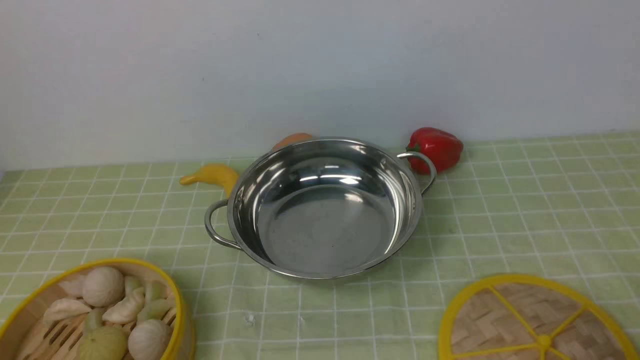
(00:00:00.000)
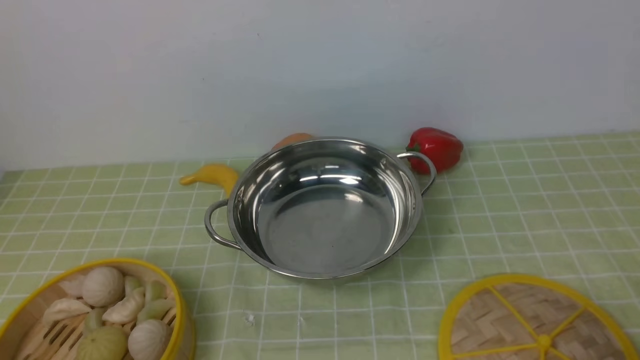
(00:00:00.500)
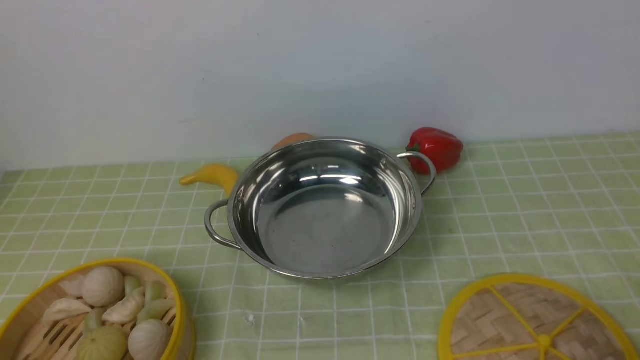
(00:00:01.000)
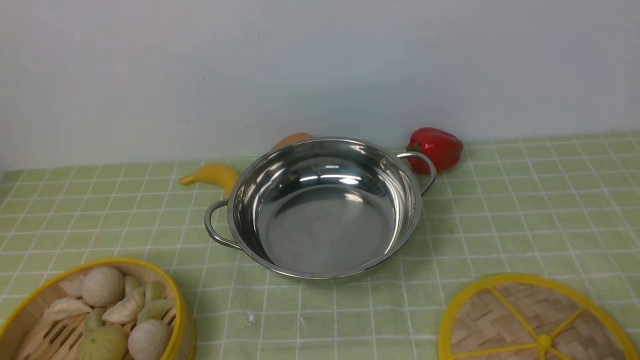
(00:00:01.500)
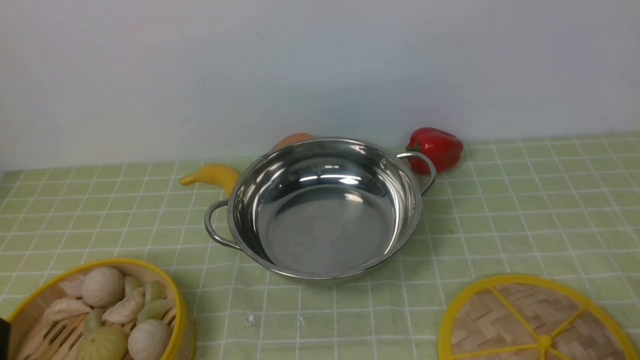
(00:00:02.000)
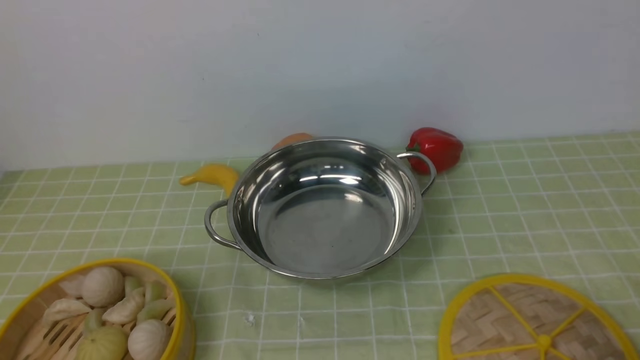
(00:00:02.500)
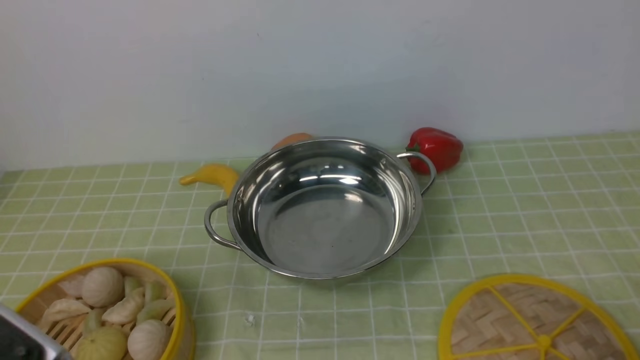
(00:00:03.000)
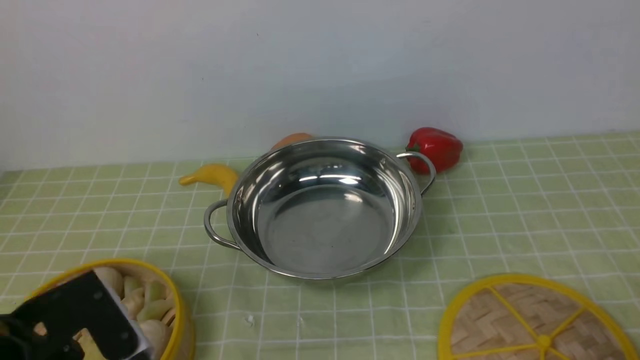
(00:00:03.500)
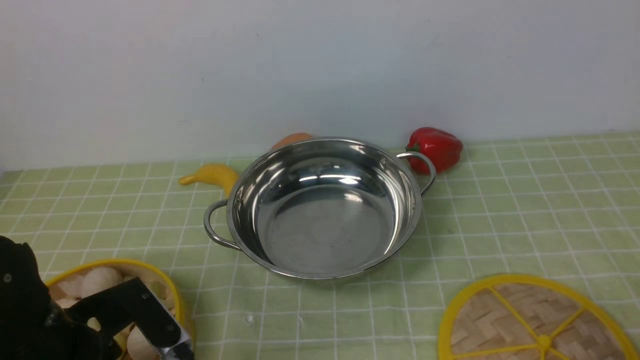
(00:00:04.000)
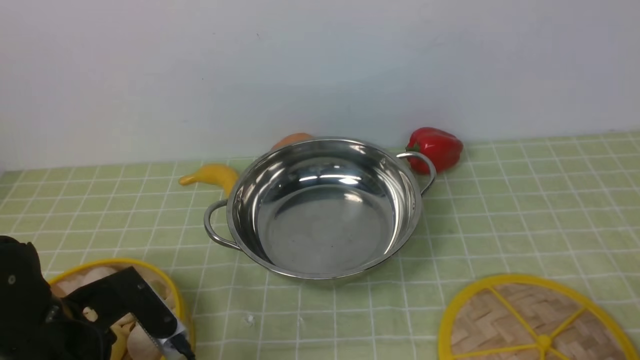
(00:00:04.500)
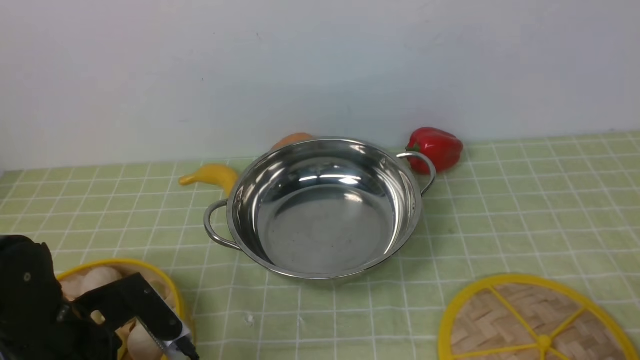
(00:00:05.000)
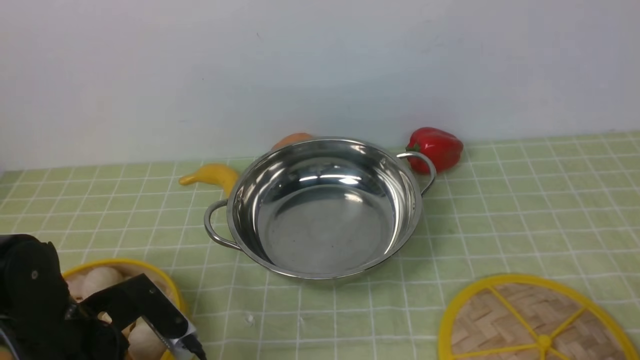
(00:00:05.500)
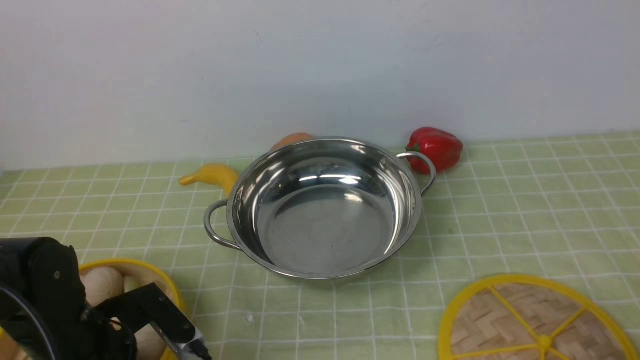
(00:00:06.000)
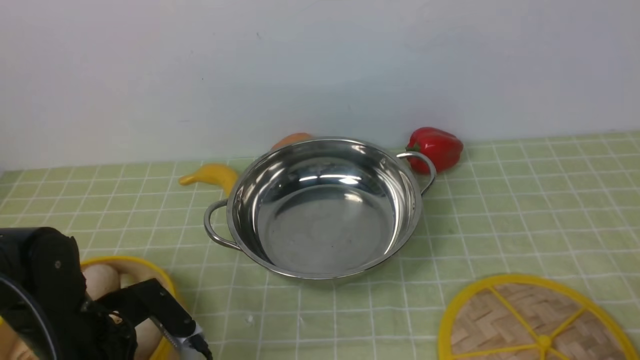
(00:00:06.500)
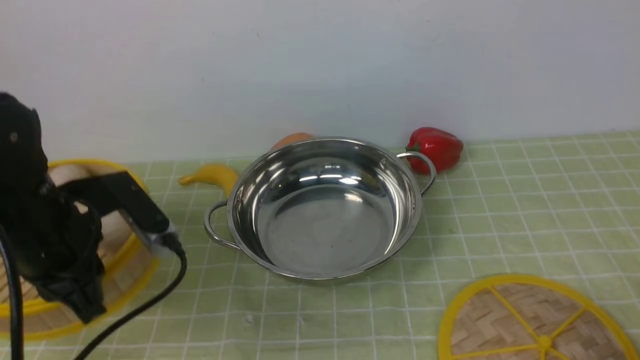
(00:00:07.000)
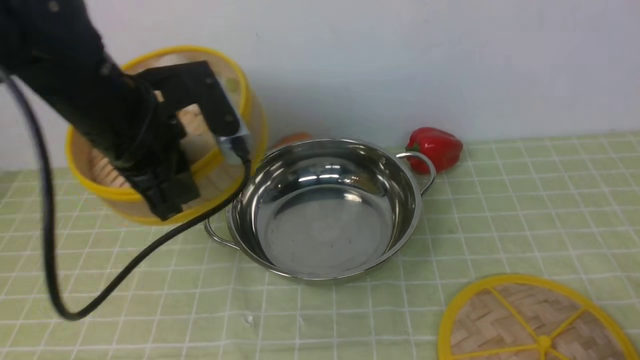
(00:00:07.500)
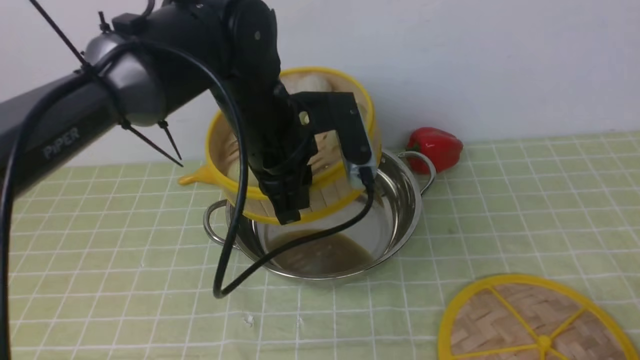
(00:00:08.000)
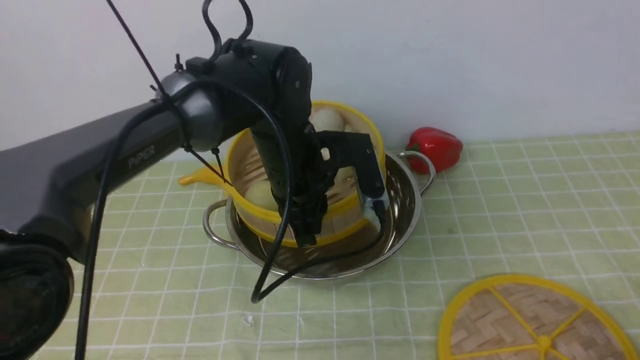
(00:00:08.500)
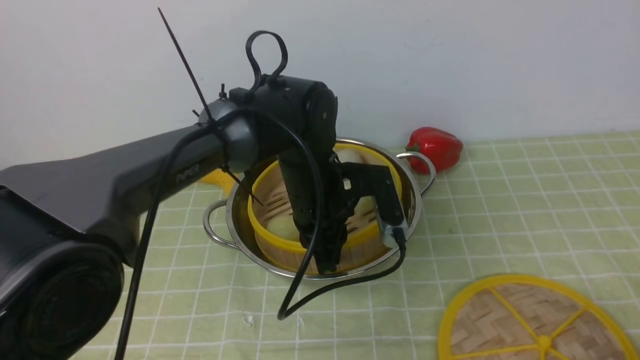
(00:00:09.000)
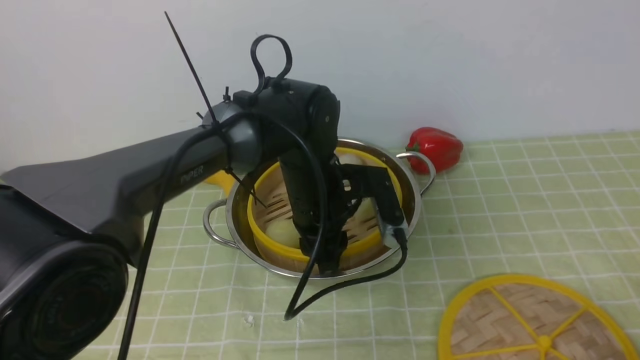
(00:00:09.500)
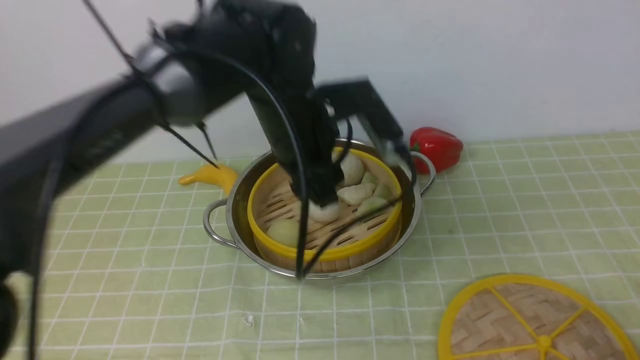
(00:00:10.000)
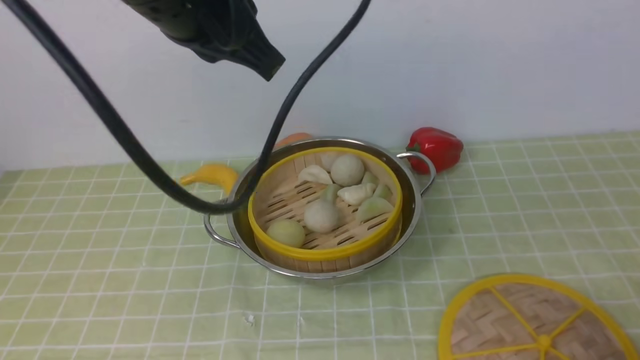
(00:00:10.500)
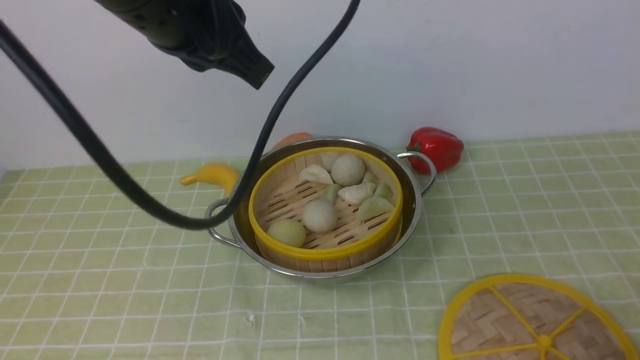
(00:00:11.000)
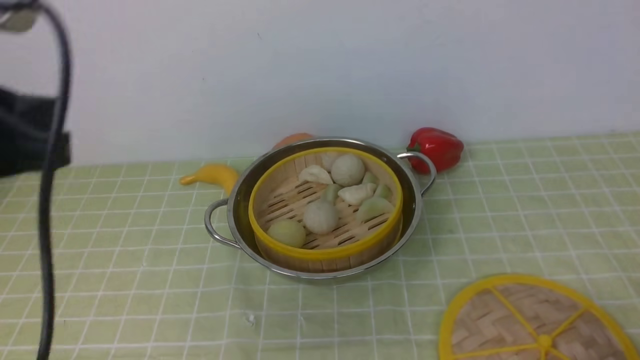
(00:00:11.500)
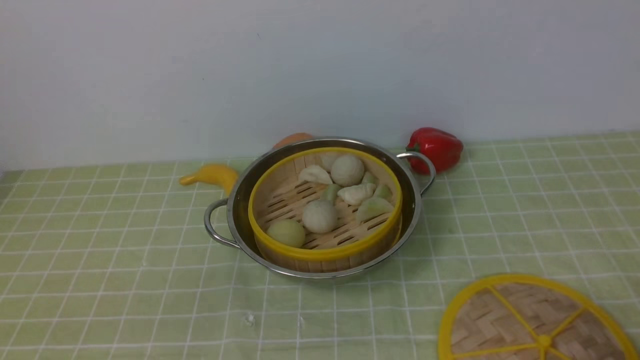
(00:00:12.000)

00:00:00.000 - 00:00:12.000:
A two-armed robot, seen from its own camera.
Task of the whole recording: place the steamer in the pot on the green tablecloth, and put the lid on the steamer.
Step, 00:00:00.000 - 00:00:07.000: use the left arm to lift the steamer closest to it.
Step, 00:00:07.500 - 00:00:10.000: use the left arm to put the steamer into the iron steamer pot in the middle.
00:00:02.000 - 00:00:04.000: The left gripper moves forward, roughly 10 cm, and opens.
00:00:04.000 - 00:00:06.000: The left gripper closes its fingers.
00:00:06.000 - 00:00:08.000: The left gripper goes about 25 cm to the right, forward and upward, and closes up.
00:00:08.000 - 00:00:10.000: The left gripper reaches about 10 cm downward, then returns, and opens its fingers.
00:00:10.000 - 00:00:12.000: The left gripper moves backward and to the left, about 40 cm, and closes up.

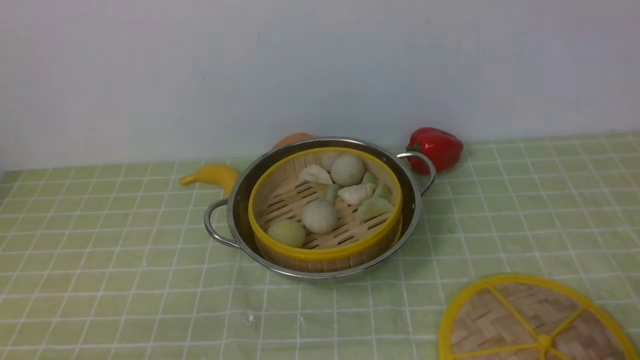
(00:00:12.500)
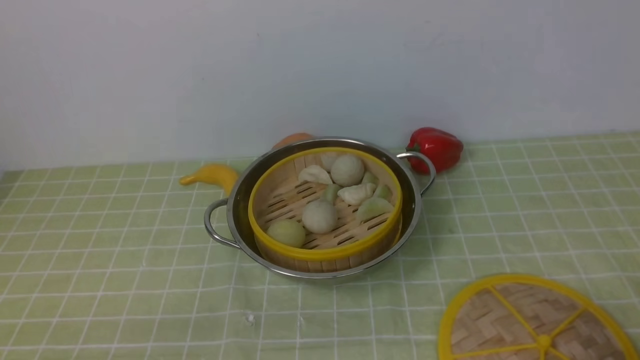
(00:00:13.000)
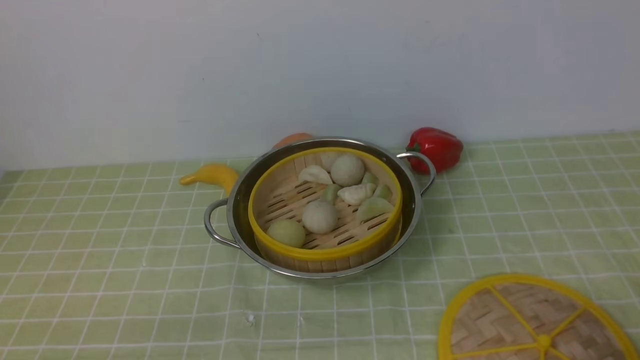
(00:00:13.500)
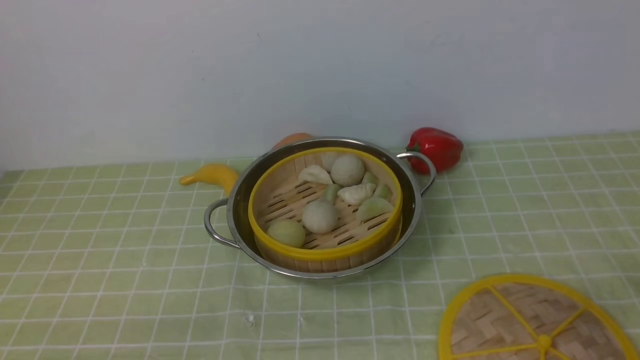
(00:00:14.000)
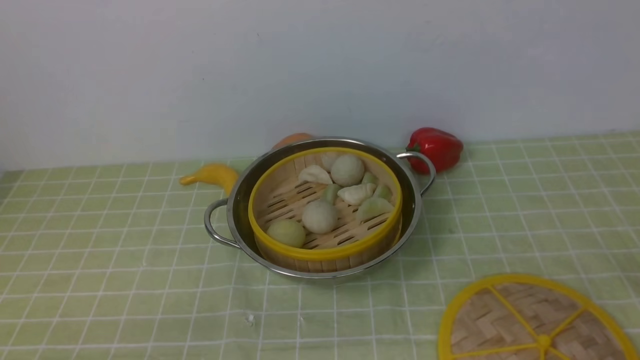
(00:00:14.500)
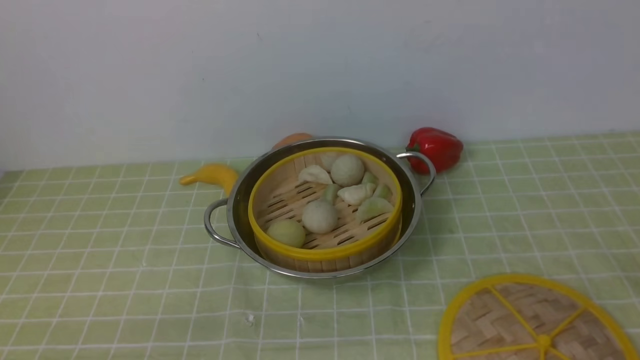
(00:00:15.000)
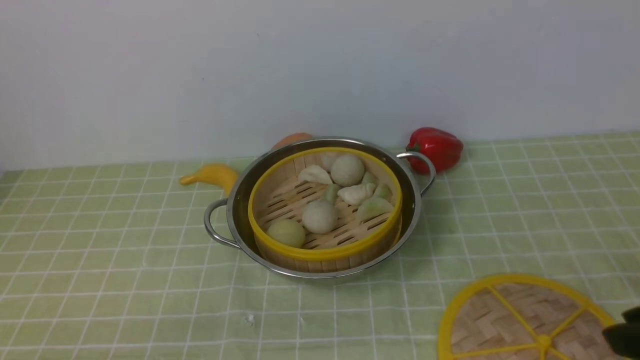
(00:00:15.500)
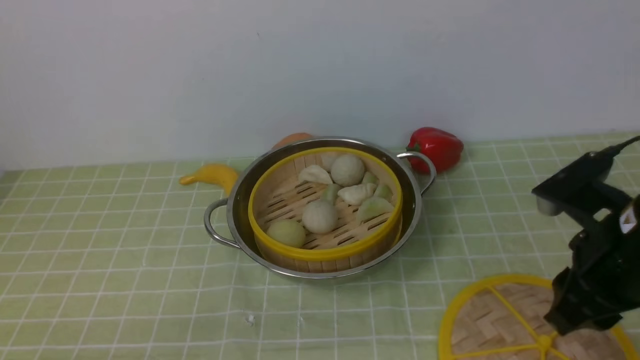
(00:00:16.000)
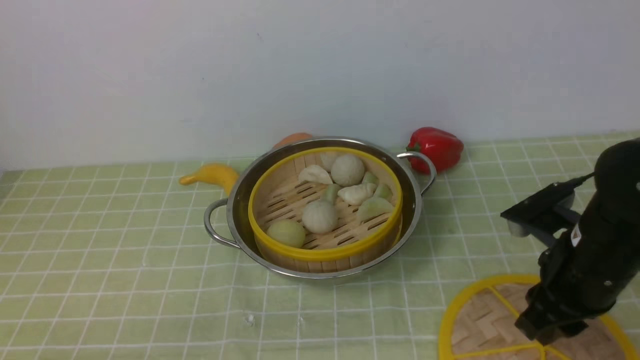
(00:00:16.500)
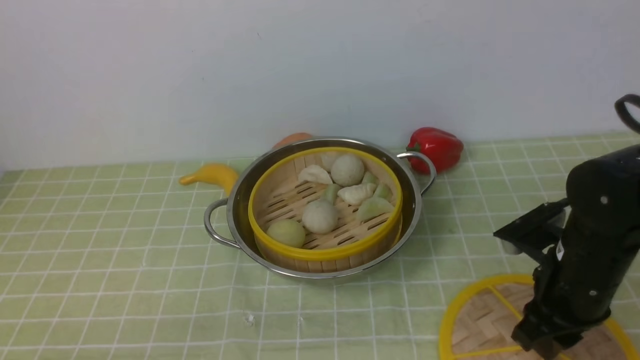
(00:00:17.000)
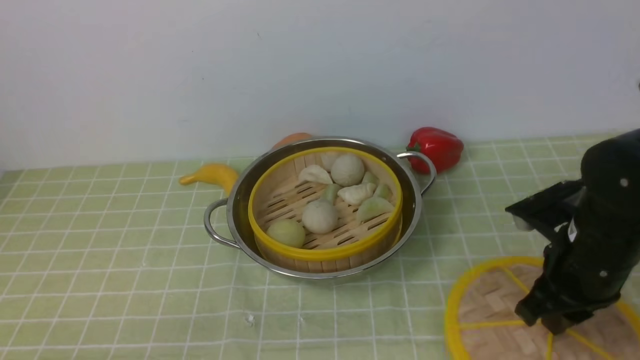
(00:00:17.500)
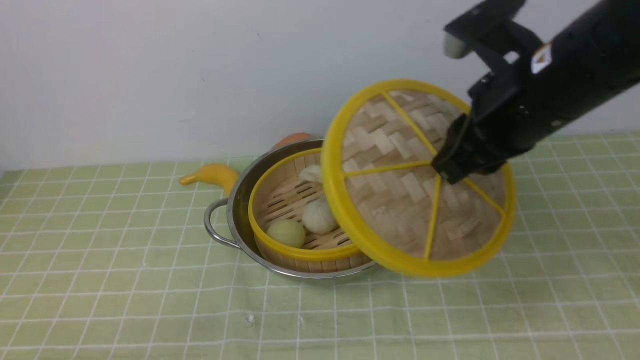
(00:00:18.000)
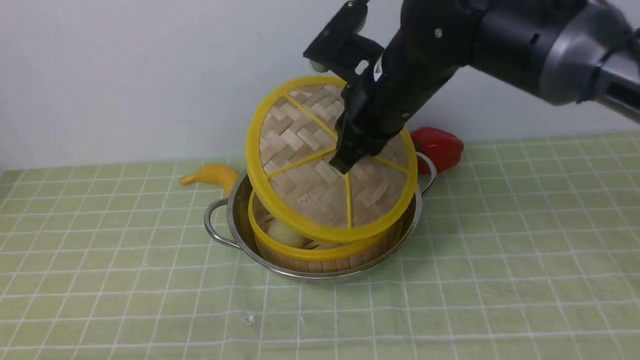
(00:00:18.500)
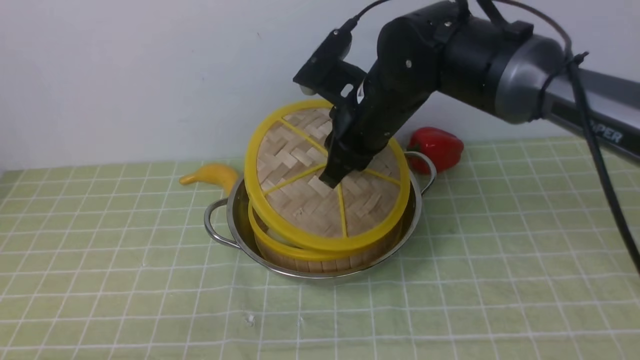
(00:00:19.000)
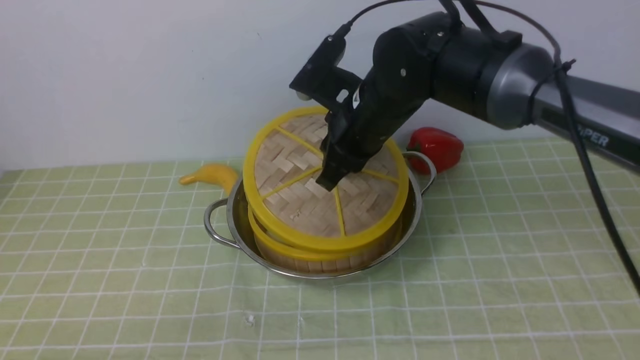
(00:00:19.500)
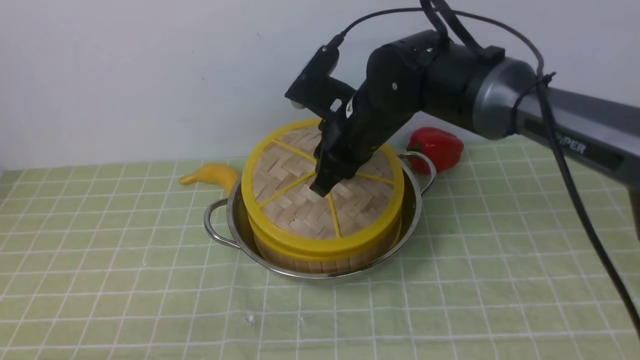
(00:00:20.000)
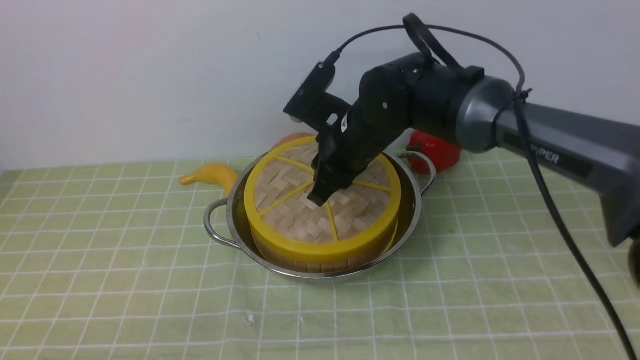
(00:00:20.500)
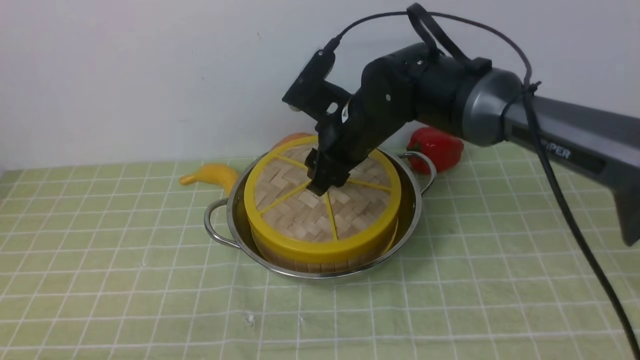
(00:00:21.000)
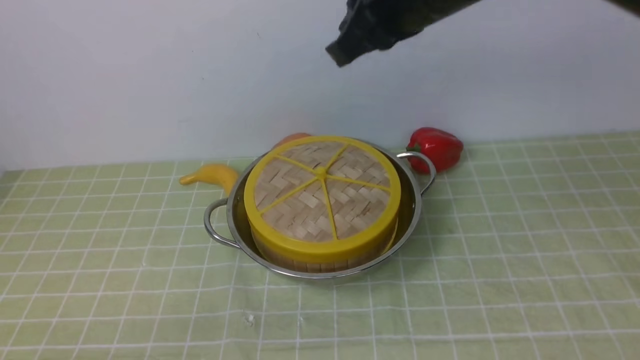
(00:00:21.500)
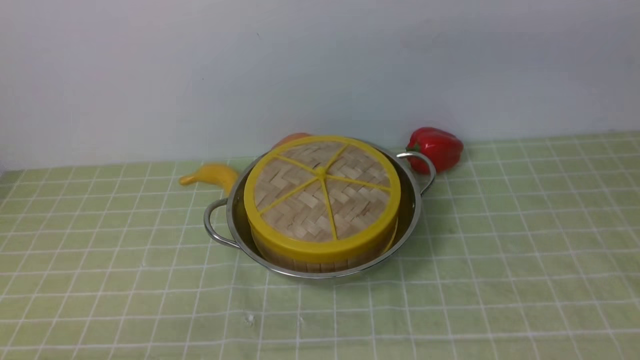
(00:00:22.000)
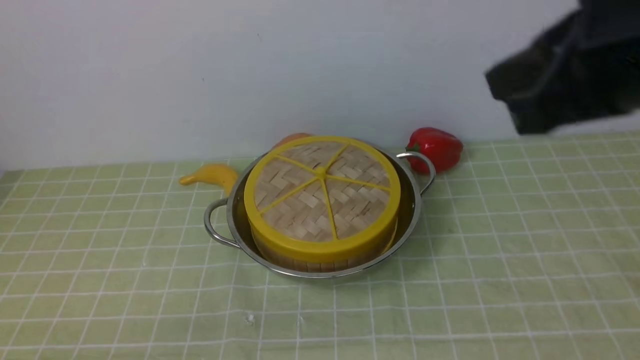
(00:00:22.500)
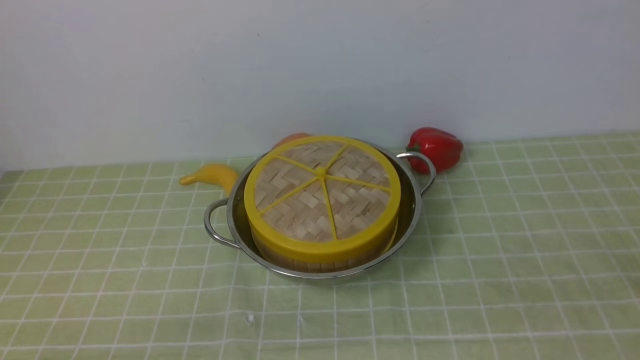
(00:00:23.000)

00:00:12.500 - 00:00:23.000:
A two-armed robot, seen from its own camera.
Task of the whole recording: place the steamer in the pot on the green tablecloth, and put the lid on the steamer.
Step, 00:00:12.500 - 00:00:17.500: use the right arm to lift the lid of the steamer.
Step, 00:00:18.000 - 00:00:21.000: use the right arm to place the steamer lid on the steamer.
00:00:14.500 - 00:00:16.500: The right gripper shifts about 25 cm forward and downward.
00:00:16.500 - 00:00:19.000: The right gripper goes roughly 20 cm to the left and forward, and closes its fingers.
00:00:19.000 - 00:00:21.000: The right gripper opens.
00:00:21.000 - 00:00:23.000: The right gripper is displaced backward and to the right by some 40 cm, and closes.
